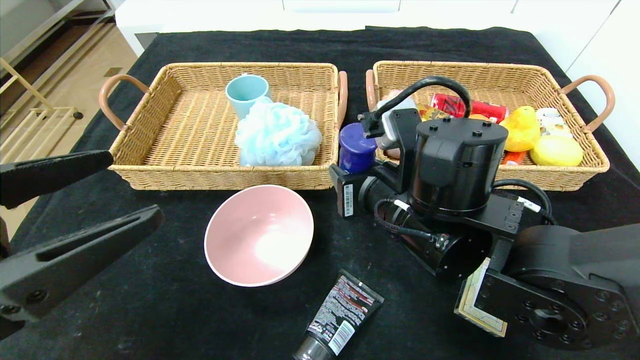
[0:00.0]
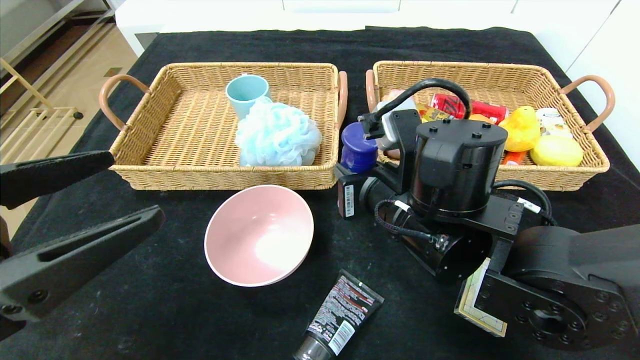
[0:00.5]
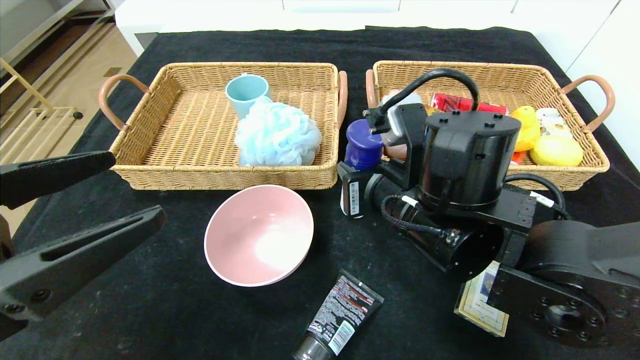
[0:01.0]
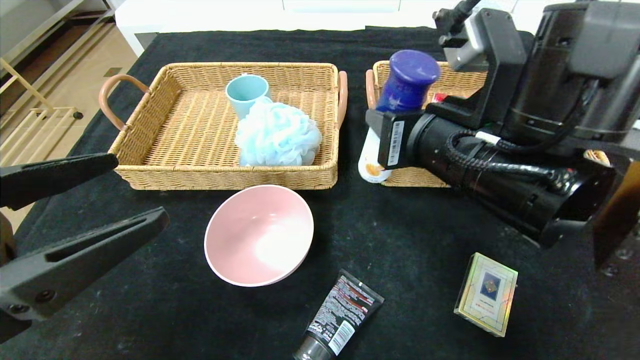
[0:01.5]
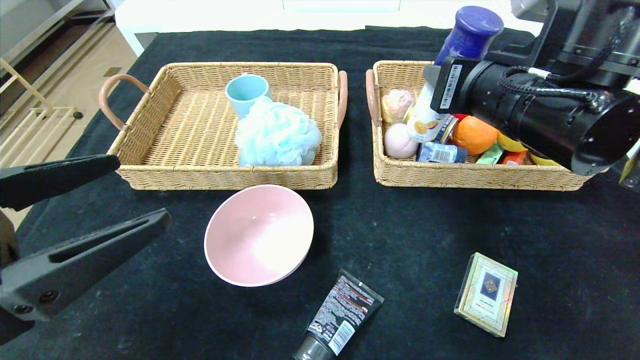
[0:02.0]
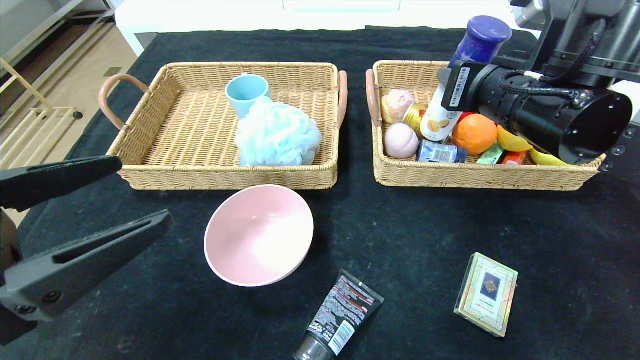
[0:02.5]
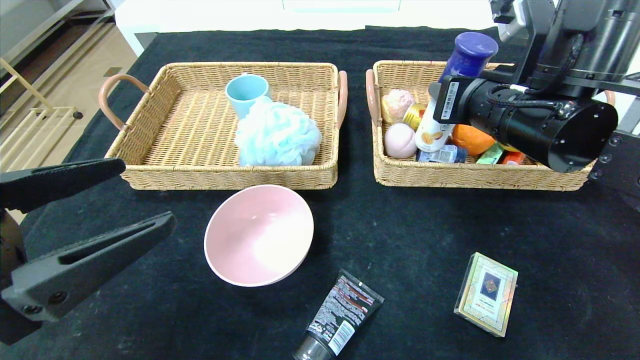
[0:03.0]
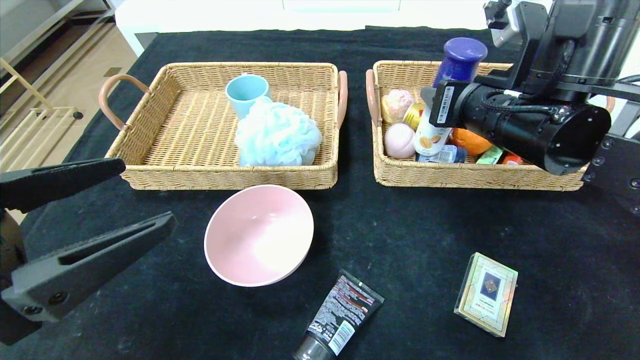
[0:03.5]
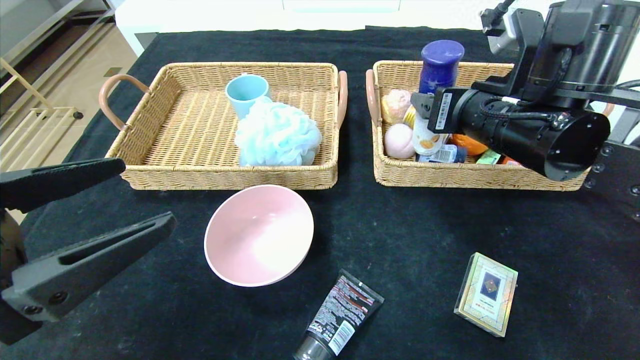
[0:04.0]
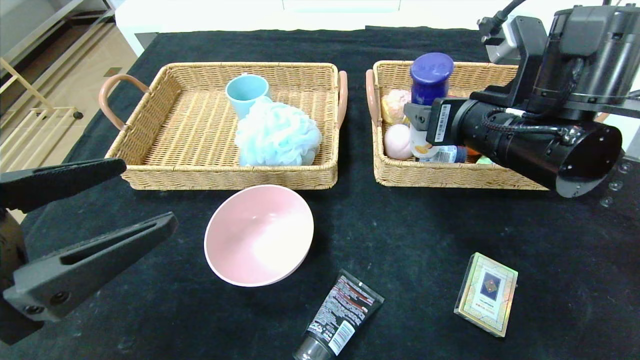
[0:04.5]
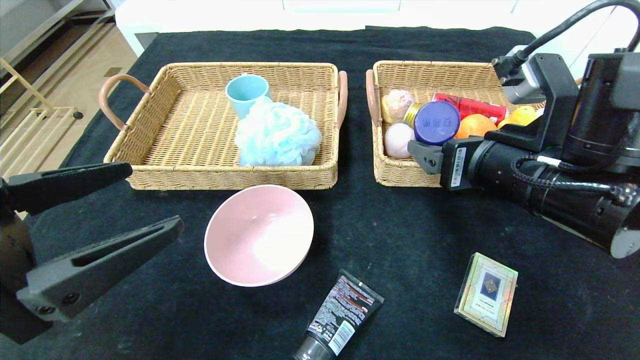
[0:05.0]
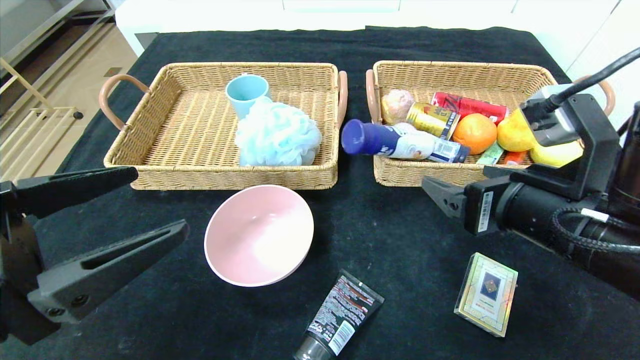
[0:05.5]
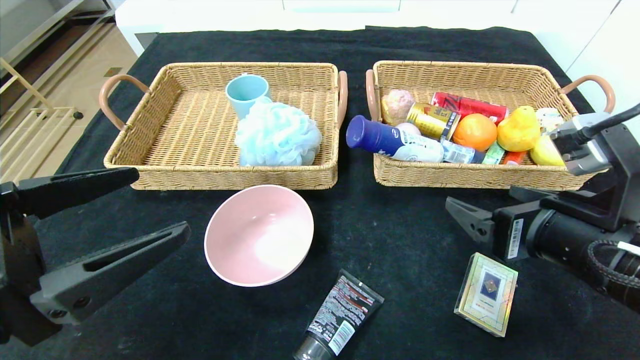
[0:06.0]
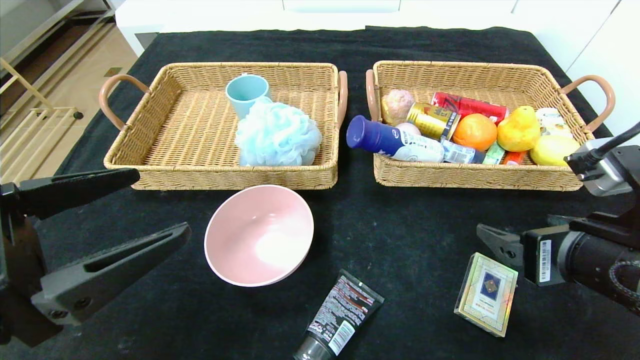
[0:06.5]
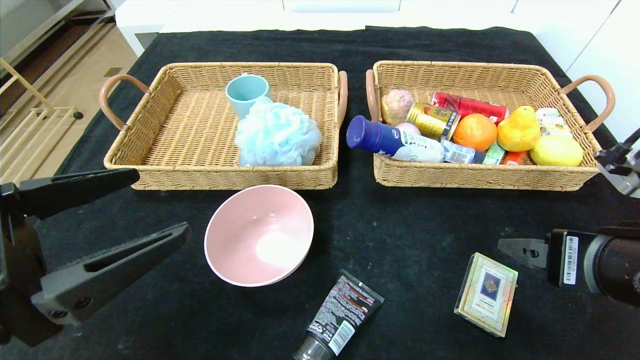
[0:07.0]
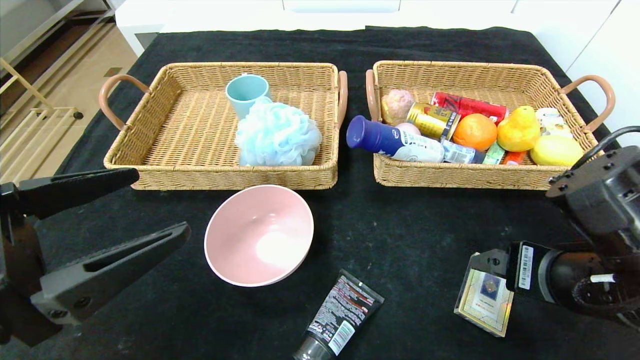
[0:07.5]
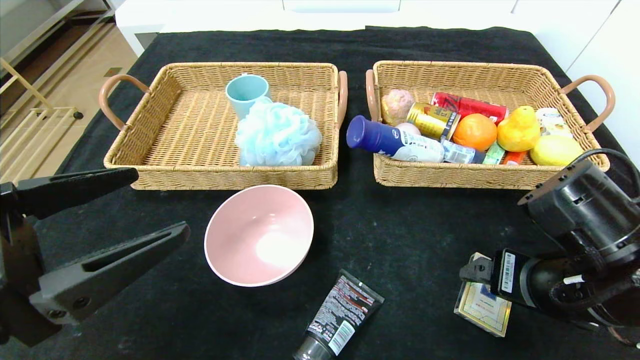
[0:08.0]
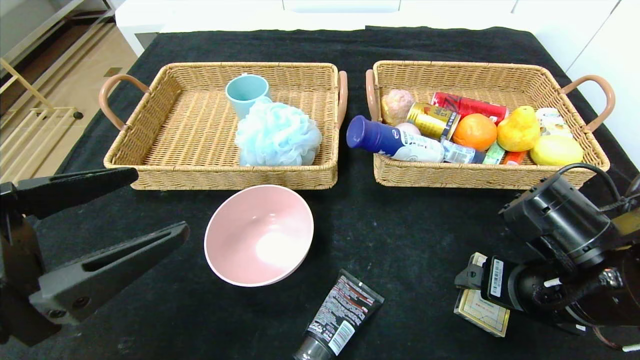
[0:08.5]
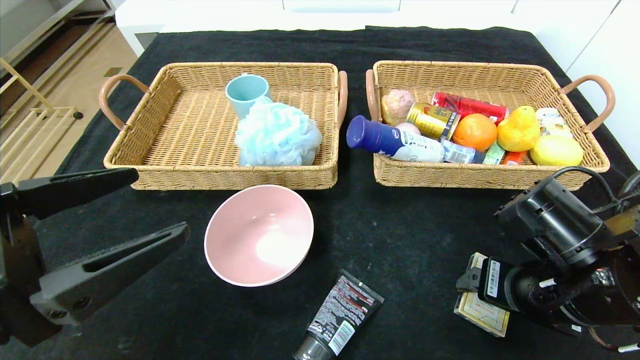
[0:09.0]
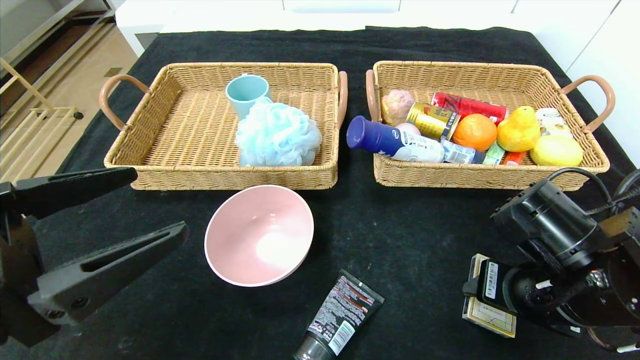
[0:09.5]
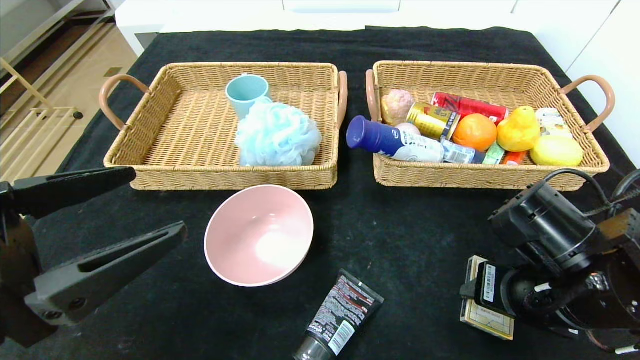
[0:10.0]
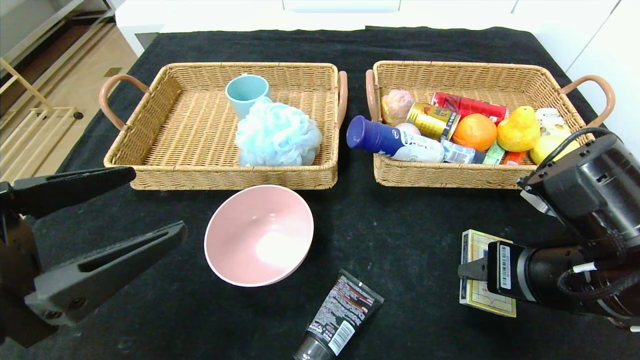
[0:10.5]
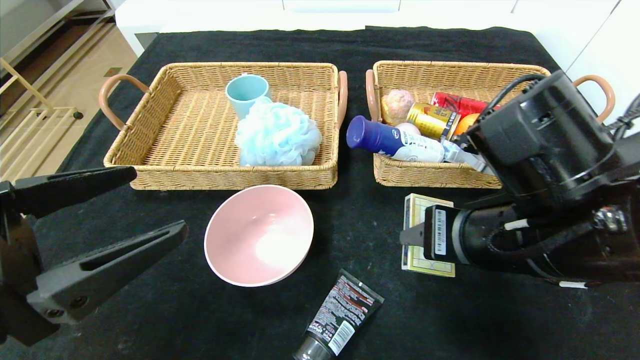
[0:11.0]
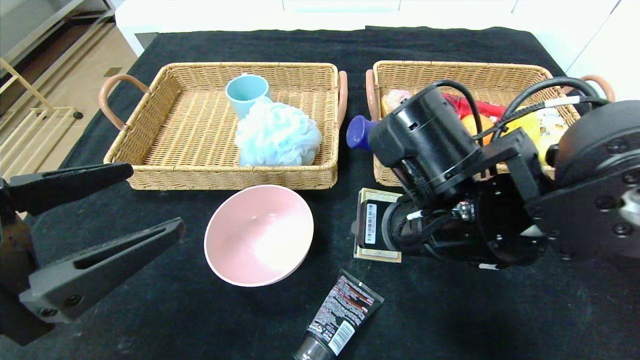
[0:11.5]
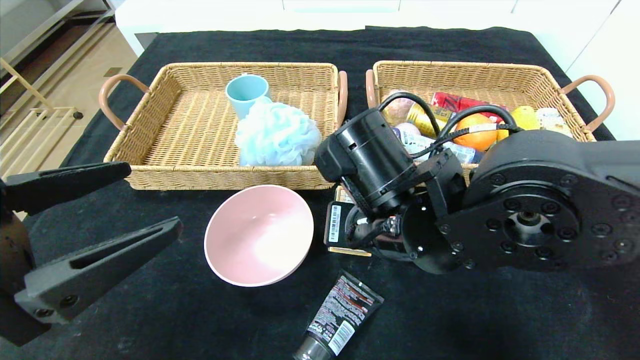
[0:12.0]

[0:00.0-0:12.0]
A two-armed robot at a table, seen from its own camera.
Step, 0:00.0 to 0:06.0: Pick up the yogurt and put it in the right basket.
0:00.0 to 0:02.0: The right gripper travels upward and to the right by roughly 15 cm.
0:02.0 to 0:04.0: The right gripper opens its fingers.
0:04.0 to 0:06.0: The right gripper goes roughly 15 cm backward and downward.
0:08.0 to 0:10.0: The right gripper closes up.
0:10.0 to 0:12.0: The right gripper shifts approximately 15 cm to the left.

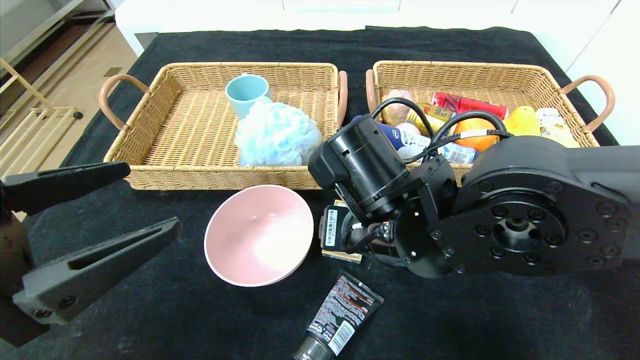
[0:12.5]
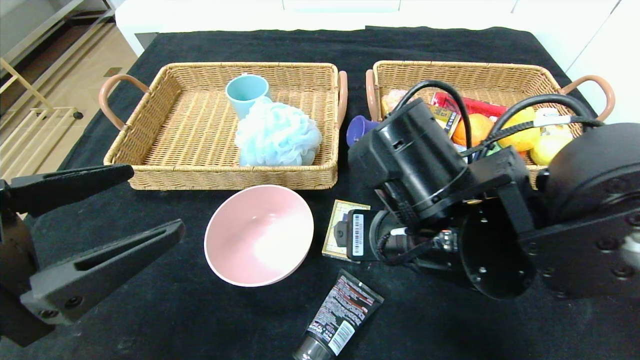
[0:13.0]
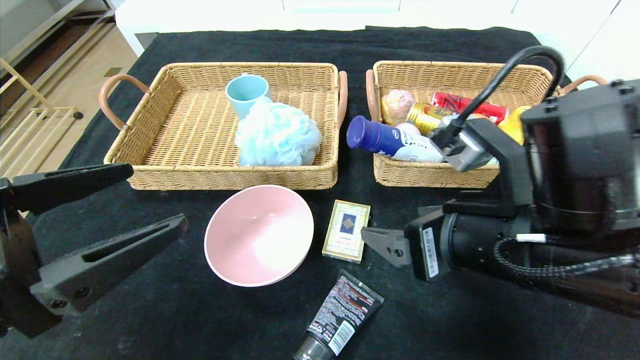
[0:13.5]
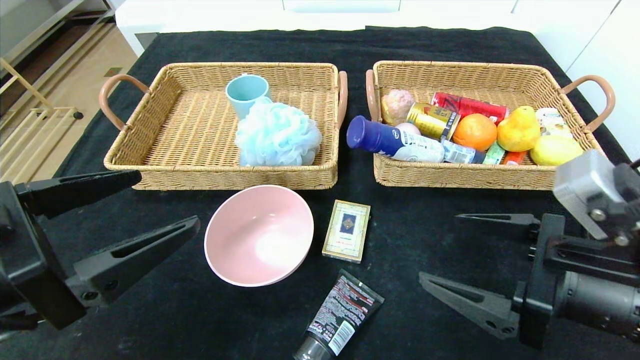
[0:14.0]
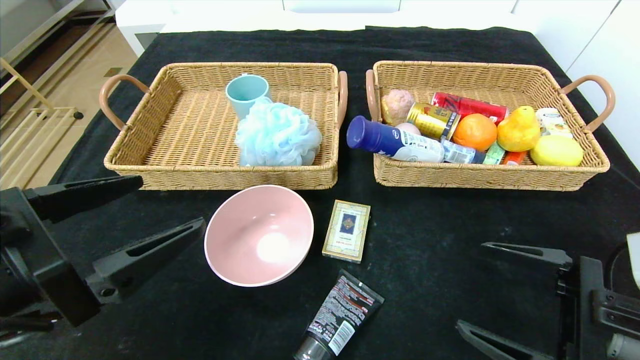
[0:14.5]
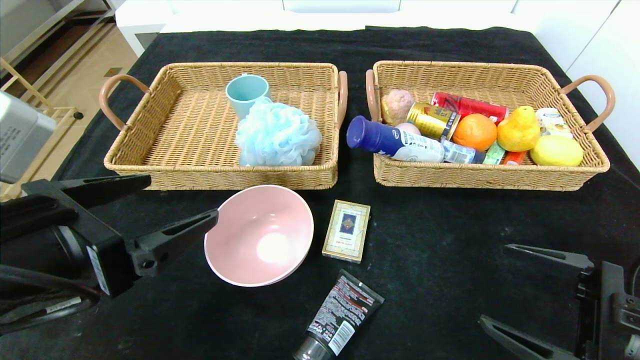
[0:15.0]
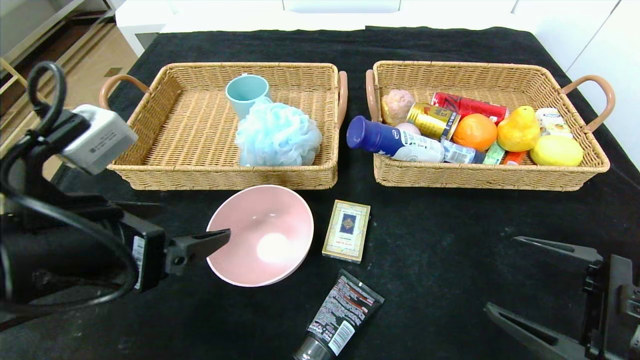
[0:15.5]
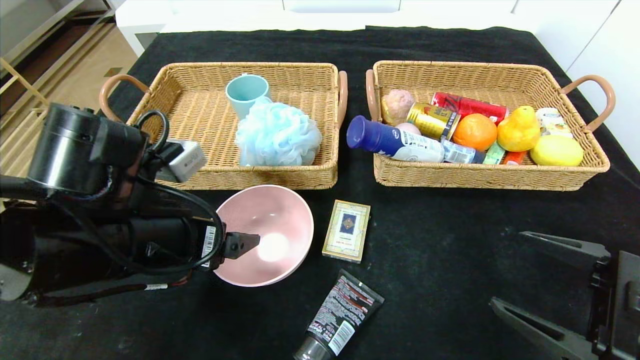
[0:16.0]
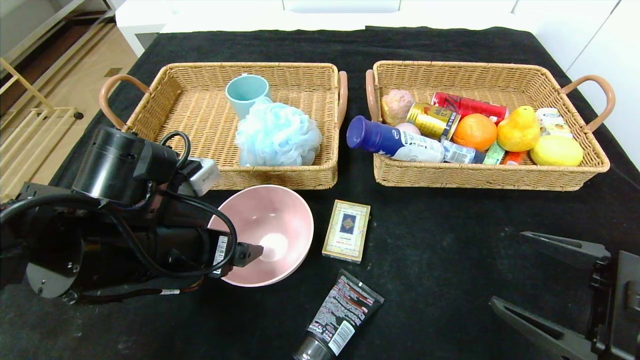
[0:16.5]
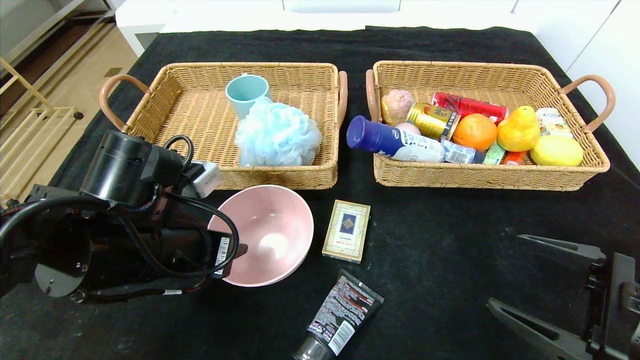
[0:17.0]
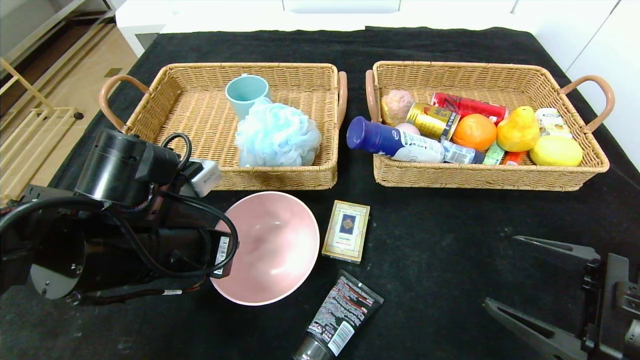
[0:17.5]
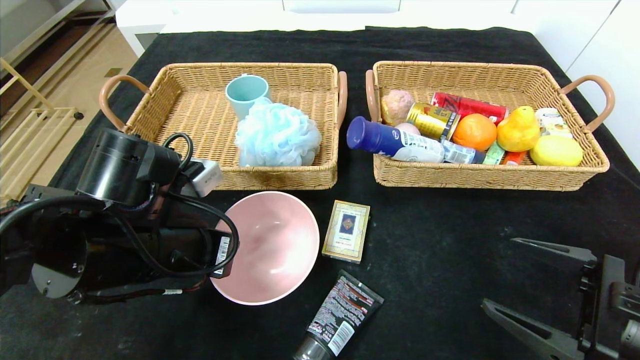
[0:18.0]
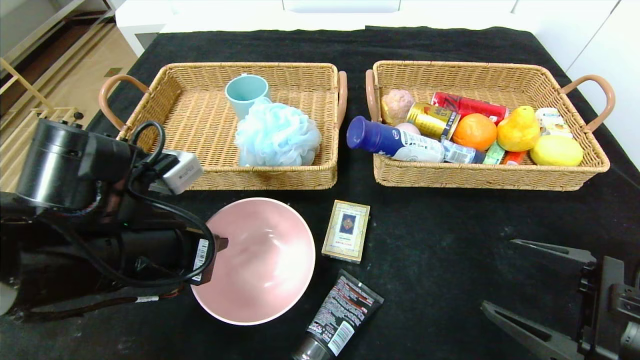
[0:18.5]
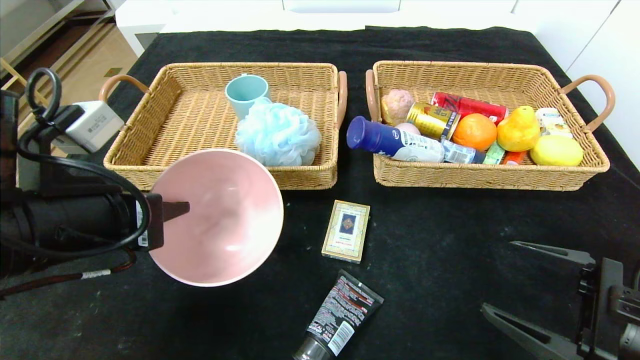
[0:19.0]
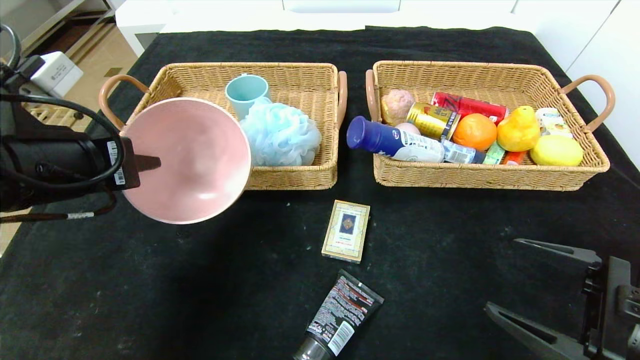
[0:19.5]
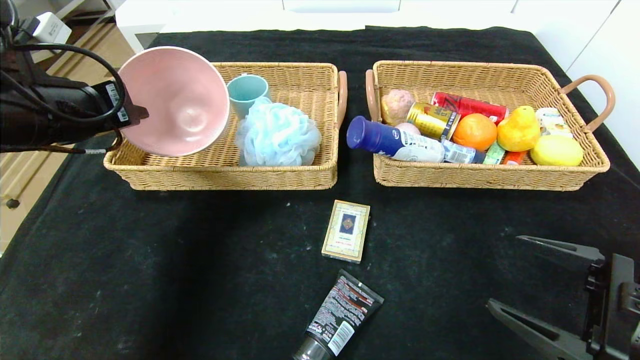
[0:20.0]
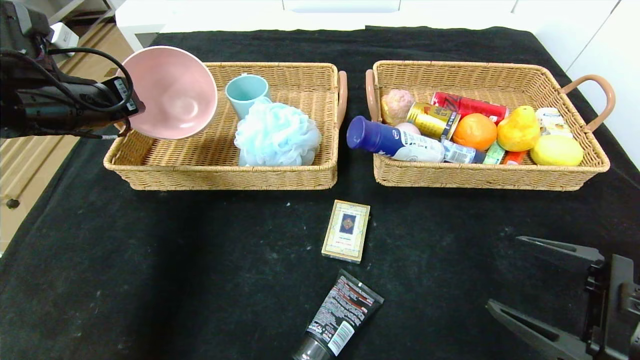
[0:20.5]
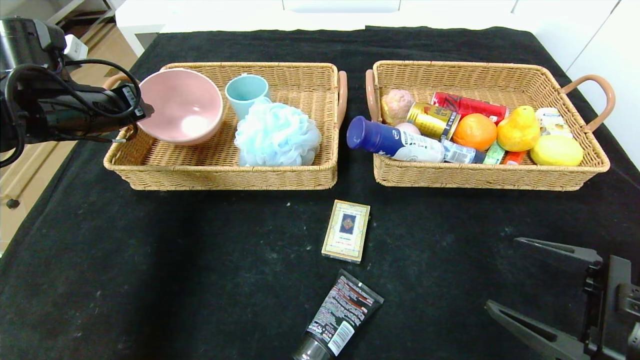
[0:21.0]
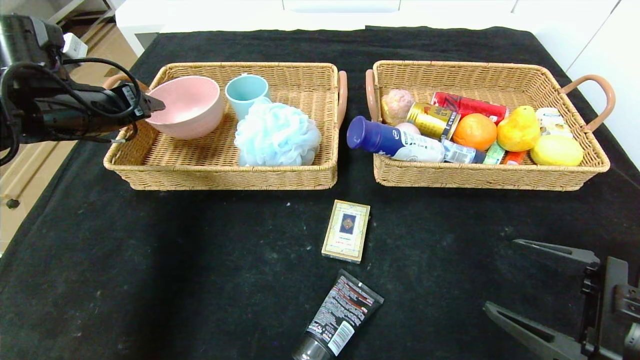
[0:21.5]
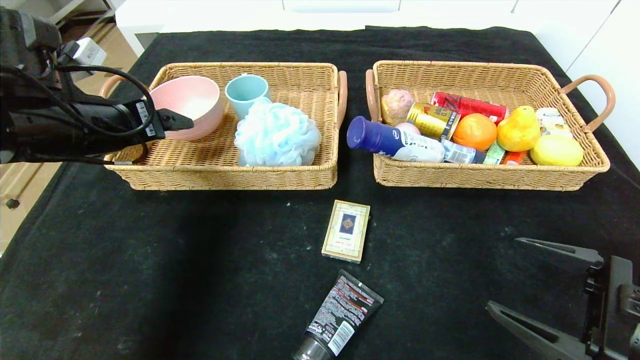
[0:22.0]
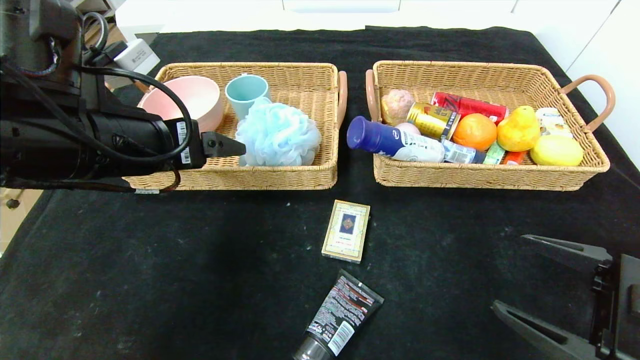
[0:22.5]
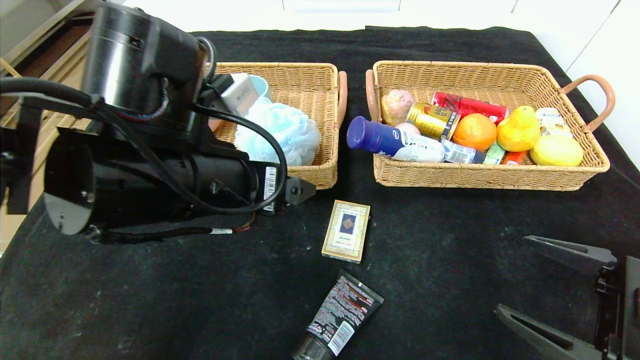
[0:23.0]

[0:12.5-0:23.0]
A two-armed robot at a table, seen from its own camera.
0:12.5 to 0:14.5: The right gripper shifts approximately 25 cm to the right and backward, and opens up.
0:14.5 to 0:16.5: The left gripper moves forward, some 10 cm.
0:16.5 to 0:19.0: The left gripper shifts roughly 5 cm upward, and closes up.
0:19.0 to 0:21.0: The left gripper is displaced forward and to the left by roughly 20 cm.
0:21.0 to 0:23.0: The left gripper shifts roughly 25 cm to the right and backward, and opens up.
